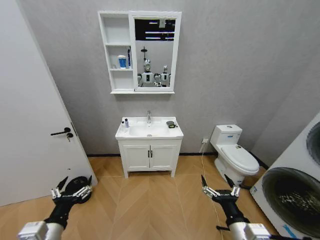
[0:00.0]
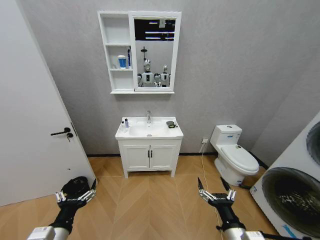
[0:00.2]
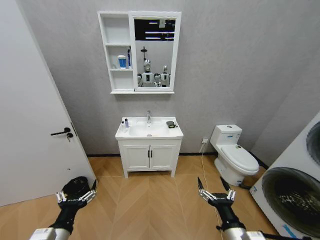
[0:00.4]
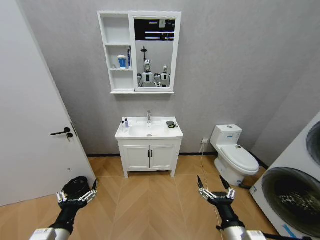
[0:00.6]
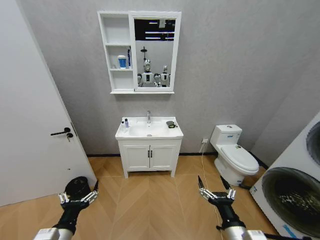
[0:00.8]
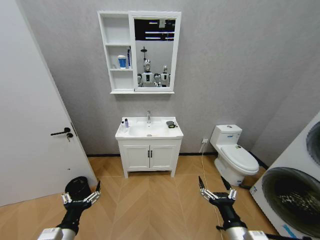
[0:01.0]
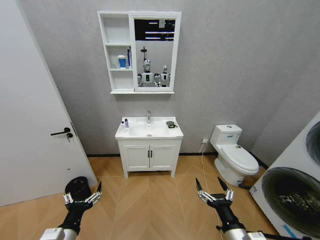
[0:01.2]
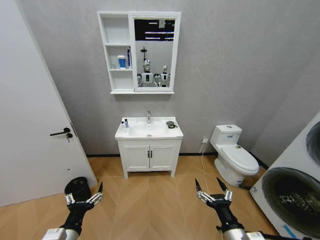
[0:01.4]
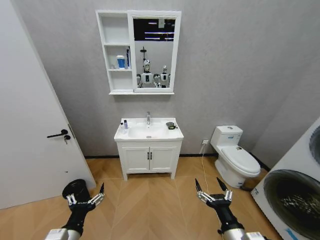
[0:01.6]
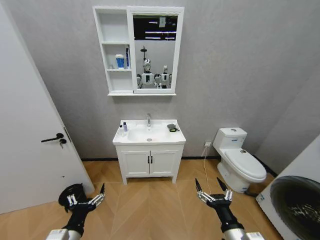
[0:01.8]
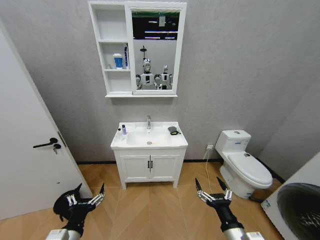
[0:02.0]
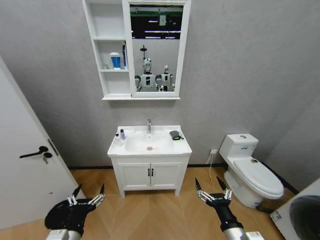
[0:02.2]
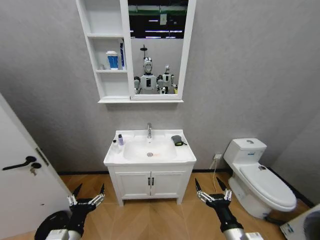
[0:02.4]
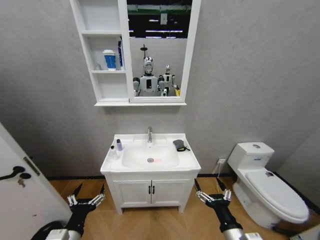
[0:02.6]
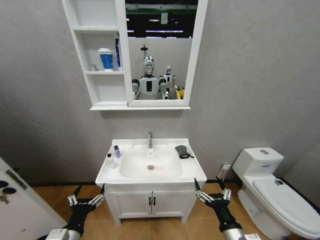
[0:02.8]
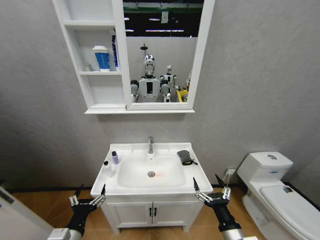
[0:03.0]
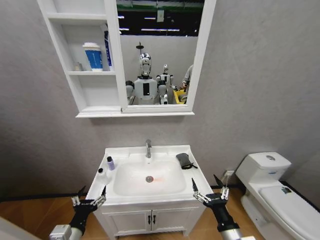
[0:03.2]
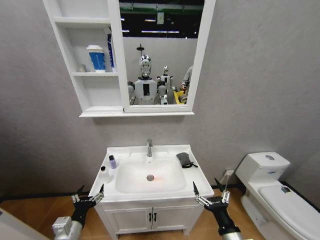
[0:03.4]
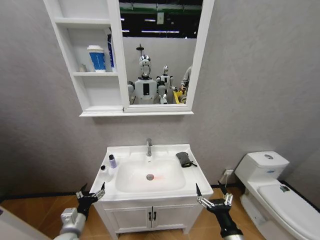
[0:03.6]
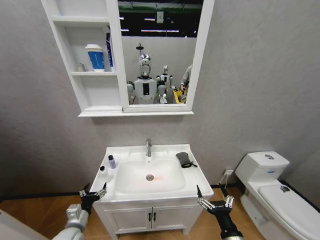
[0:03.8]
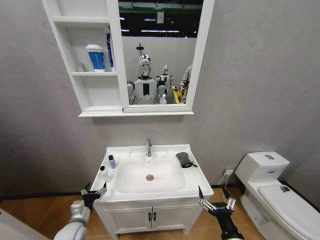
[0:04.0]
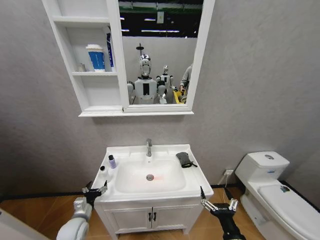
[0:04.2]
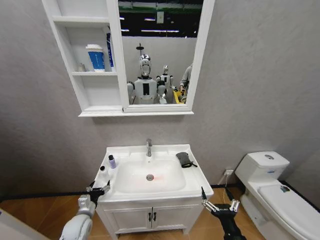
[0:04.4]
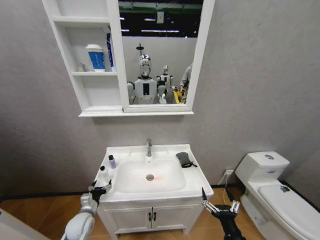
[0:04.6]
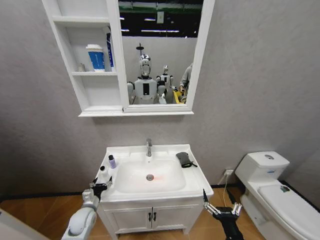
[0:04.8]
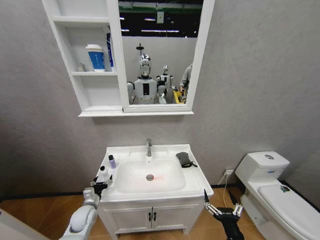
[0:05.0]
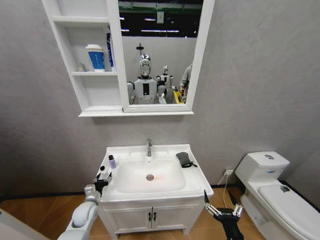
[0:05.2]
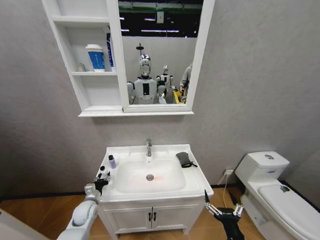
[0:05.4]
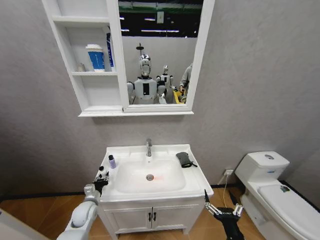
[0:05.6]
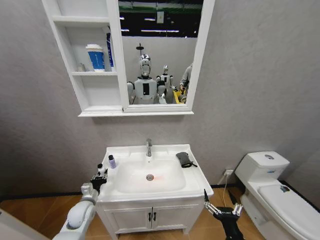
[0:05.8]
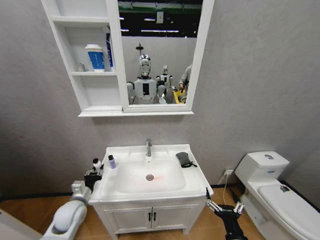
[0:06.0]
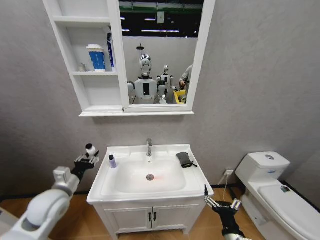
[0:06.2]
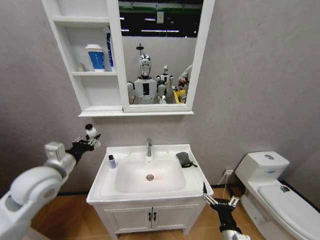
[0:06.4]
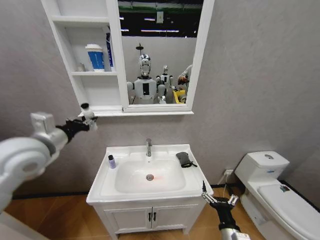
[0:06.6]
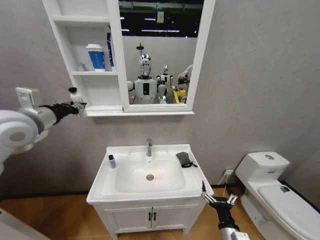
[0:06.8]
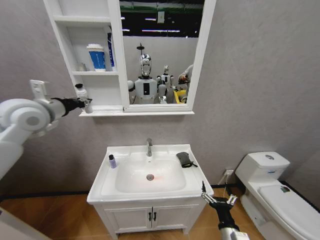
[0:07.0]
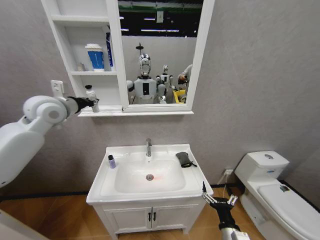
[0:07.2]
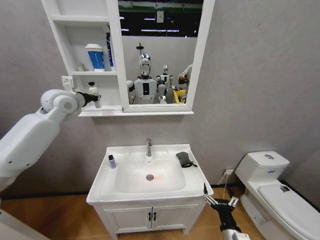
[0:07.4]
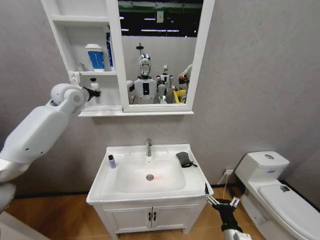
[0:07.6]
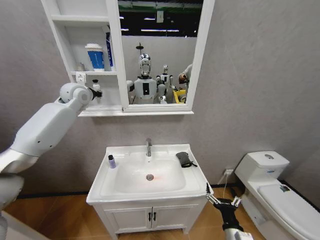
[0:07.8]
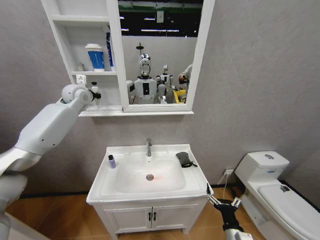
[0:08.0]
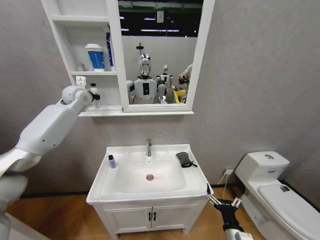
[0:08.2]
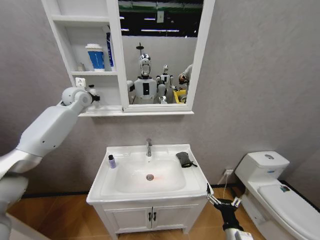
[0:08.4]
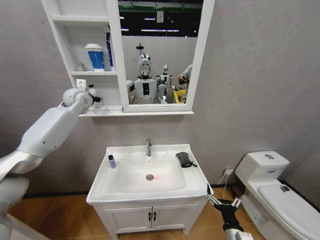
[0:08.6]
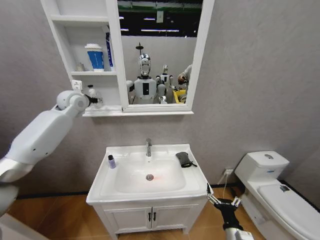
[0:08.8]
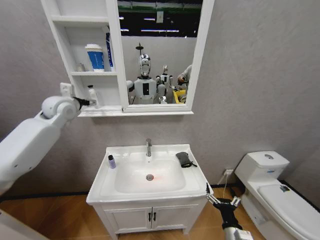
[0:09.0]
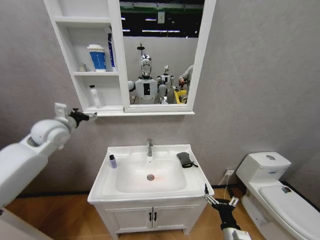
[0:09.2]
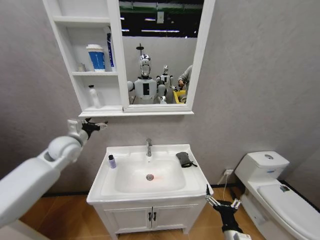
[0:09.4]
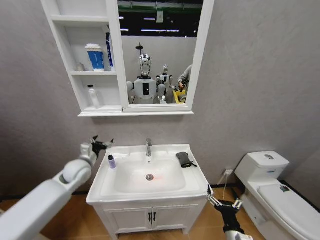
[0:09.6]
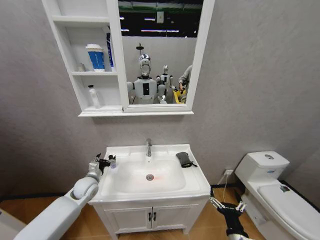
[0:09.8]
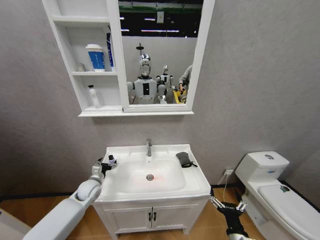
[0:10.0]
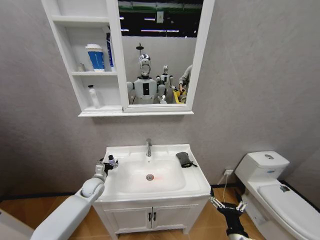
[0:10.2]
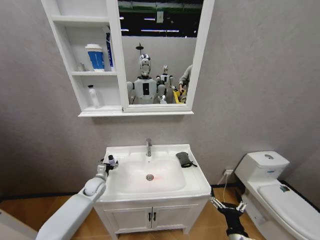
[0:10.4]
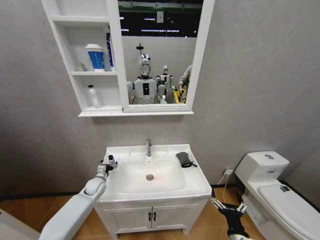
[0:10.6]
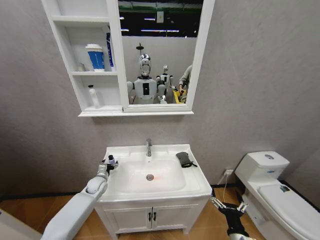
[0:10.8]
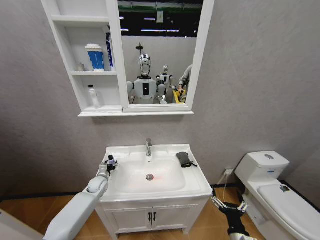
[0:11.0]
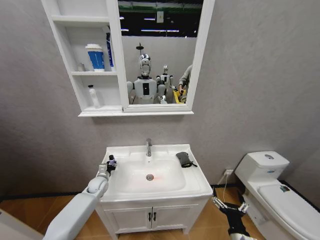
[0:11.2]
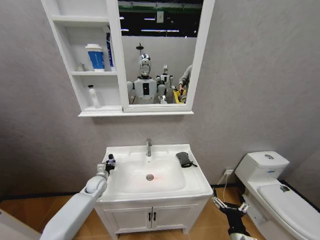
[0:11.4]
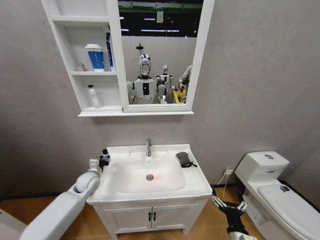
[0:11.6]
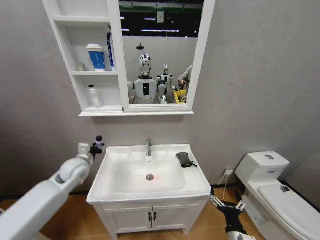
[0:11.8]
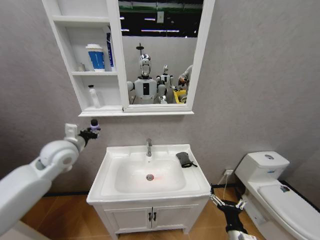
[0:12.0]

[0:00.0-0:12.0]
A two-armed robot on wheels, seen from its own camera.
Task of the whole recording: Move facial cleanser and shampoo from washbasin to cabinet, then wipe washbasin with towel.
0:03.0 to 0:04.4: The left gripper shifts about 20 cm forward and downward.
0:04.4 to 0:06.0: The left gripper goes approximately 10 cm upward, and closes up.
0:06.0 to 0:07.6: The left gripper shifts roughly 50 cm upward and forward.
0:07.6 to 0:09.0: The left gripper shifts by about 5 cm, and opens its fingers.
0:09.0 to 0:10.4: The left gripper shifts about 40 cm downward.
0:10.4 to 0:12.0: The left gripper goes about 30 cm upward, and closes up.

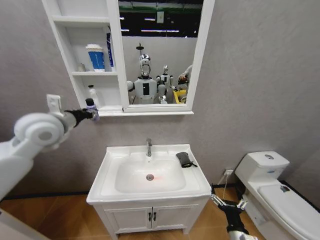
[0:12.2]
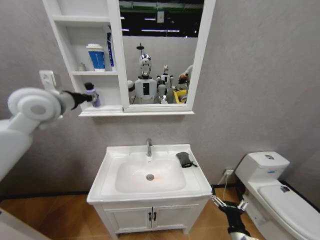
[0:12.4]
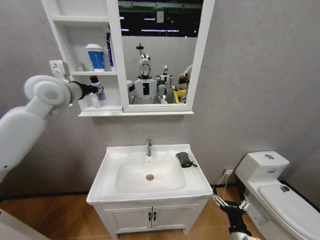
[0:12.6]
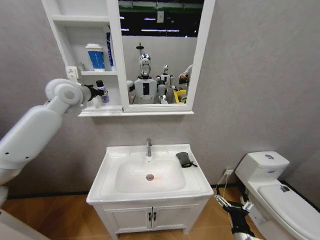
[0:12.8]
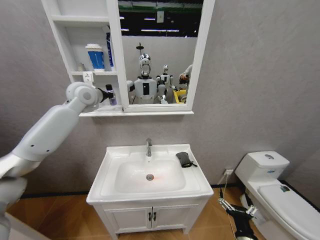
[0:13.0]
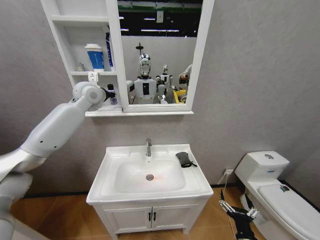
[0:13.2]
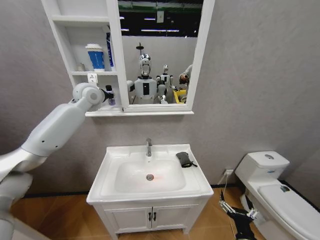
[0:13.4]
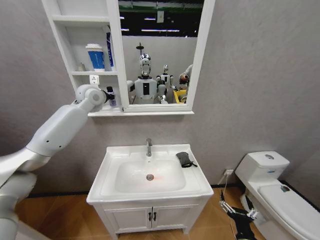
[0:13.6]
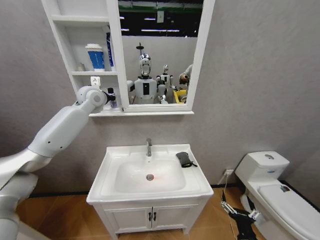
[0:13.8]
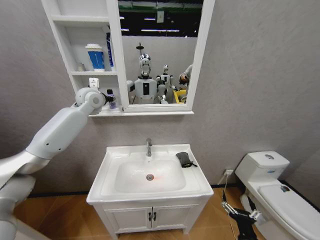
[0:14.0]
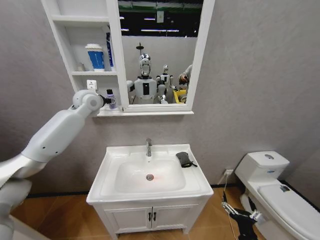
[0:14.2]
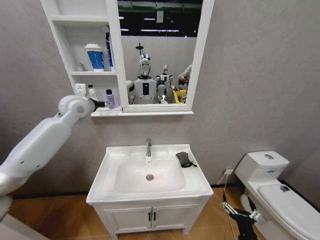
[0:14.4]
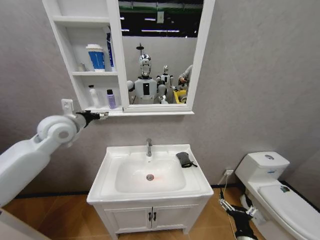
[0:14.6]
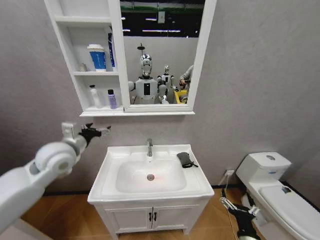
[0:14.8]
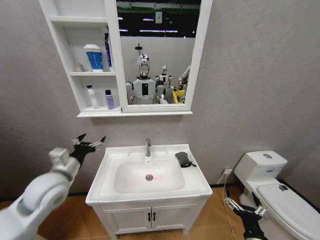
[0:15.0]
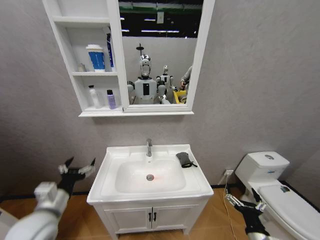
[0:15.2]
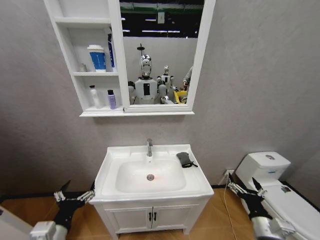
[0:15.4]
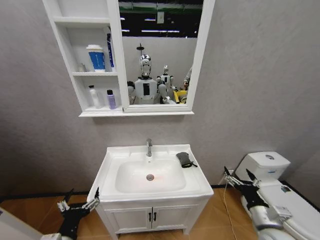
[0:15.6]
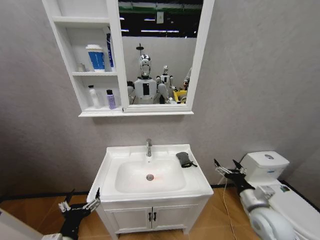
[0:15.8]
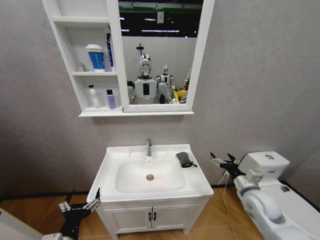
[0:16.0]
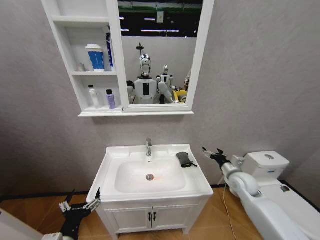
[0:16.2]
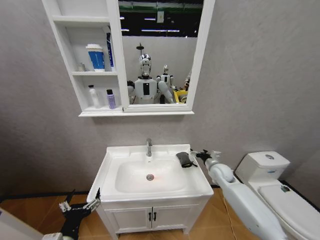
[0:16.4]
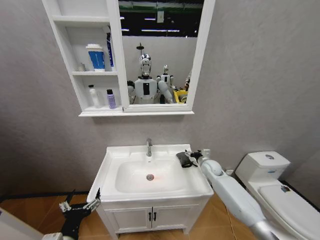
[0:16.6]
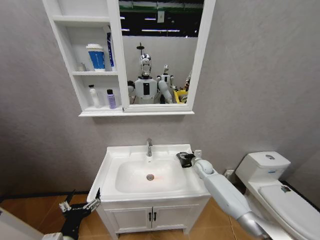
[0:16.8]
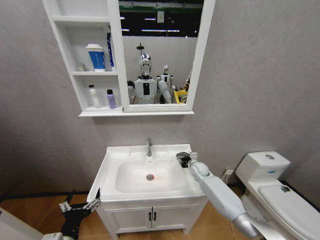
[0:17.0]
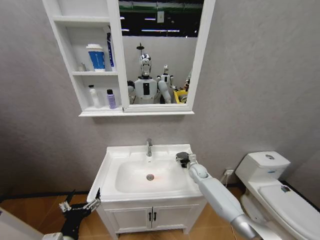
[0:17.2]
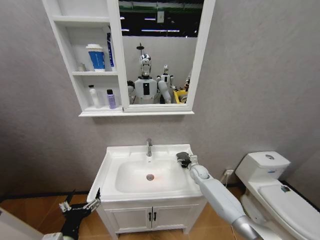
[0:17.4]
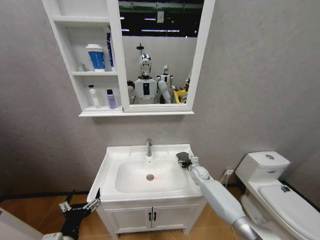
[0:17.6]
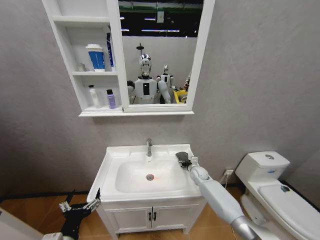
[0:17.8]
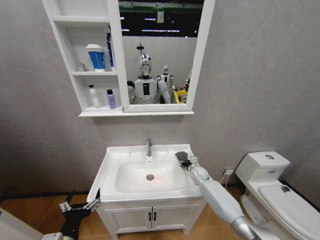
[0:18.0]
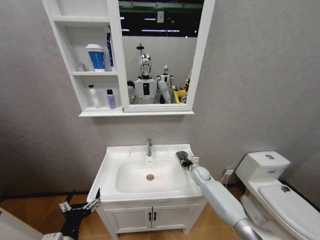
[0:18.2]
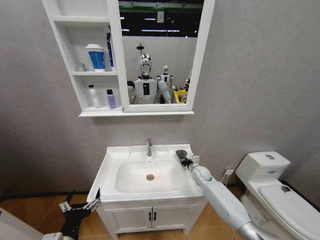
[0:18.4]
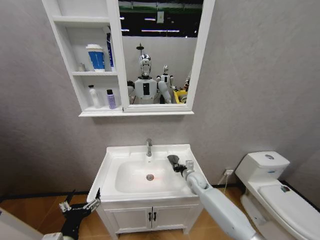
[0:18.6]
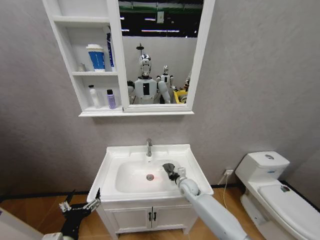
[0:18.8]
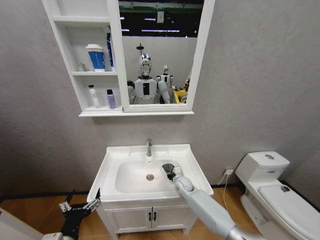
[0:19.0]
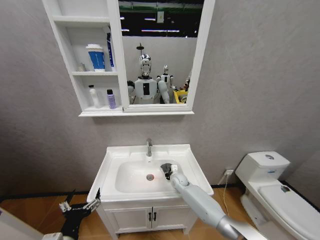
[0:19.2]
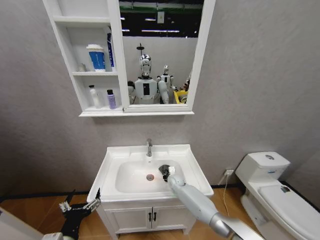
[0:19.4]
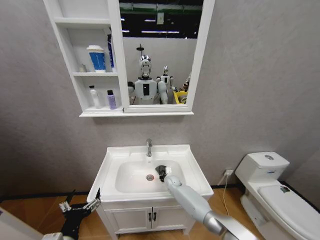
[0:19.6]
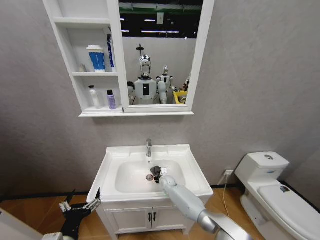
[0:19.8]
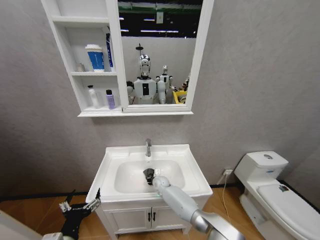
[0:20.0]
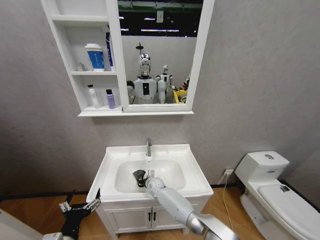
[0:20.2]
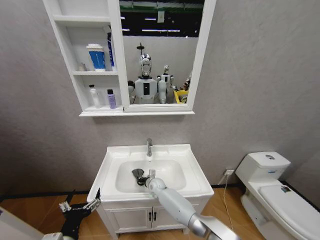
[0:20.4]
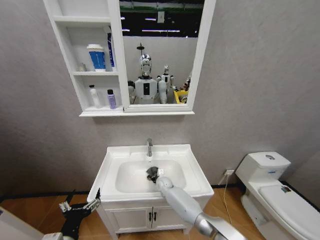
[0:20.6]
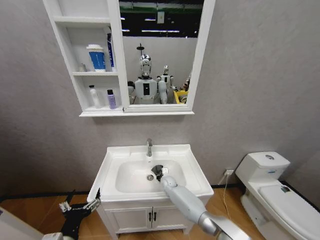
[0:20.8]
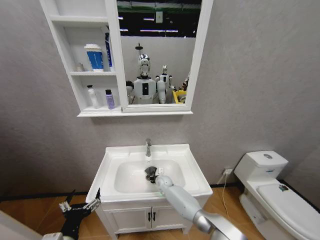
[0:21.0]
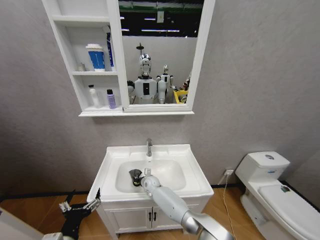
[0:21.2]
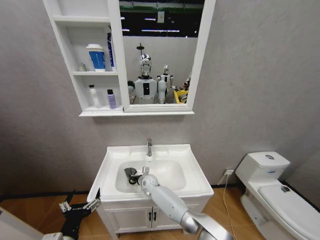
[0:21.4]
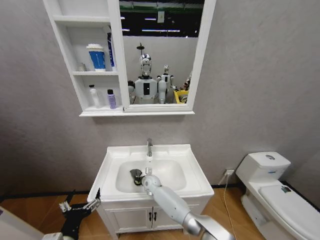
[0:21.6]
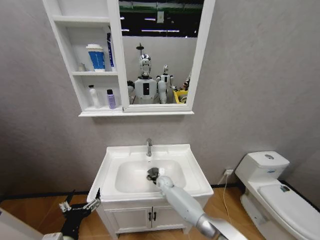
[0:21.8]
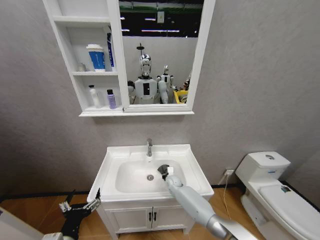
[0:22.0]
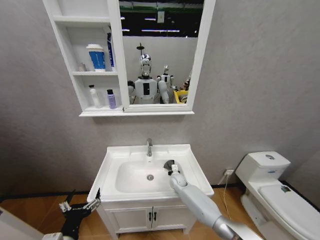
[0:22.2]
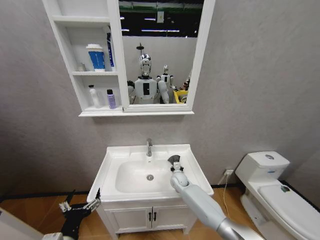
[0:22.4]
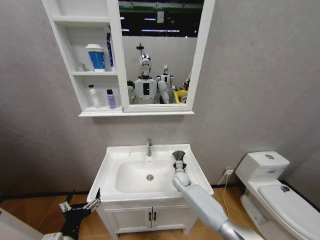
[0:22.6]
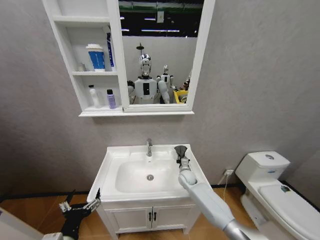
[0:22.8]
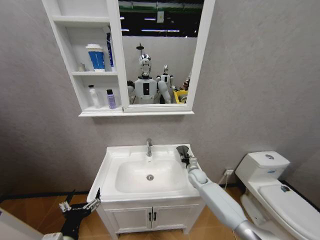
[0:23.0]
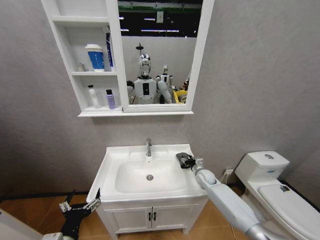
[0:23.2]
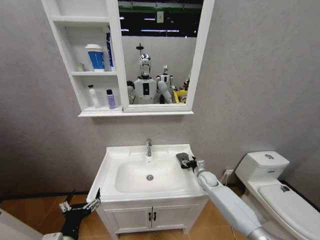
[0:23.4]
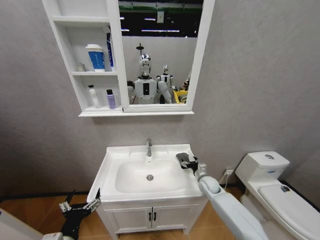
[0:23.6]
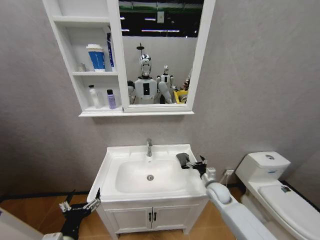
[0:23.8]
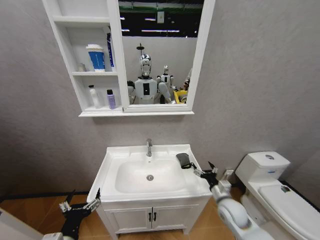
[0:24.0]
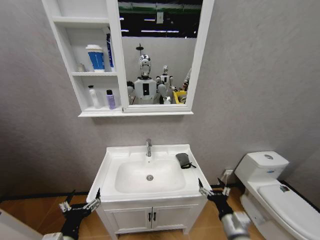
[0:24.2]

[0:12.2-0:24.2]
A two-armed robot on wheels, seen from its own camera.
Task of the whole recording: Move facial cleanser and shampoo from washbasin to cabinet, then wipe washbasin with towel.
0:12.2 to 0:13.8: The left gripper is displaced forward by roughly 20 cm.
0:13.8 to 0:15.2: The left gripper goes some 50 cm backward and downward, and opens. Meanwhile the right gripper shifts by roughly 5 cm.
0:15.2 to 0:16.6: The right gripper goes some 35 cm forward. Meanwhile the left gripper moves backward and to the right, approximately 10 cm.
0:16.6 to 0:18.2: The right gripper is displaced downward by about 5 cm, and closes up.
0:18.2 to 0:19.8: The right gripper travels to the left and downward by approximately 20 cm, and closes.
0:19.8 to 0:21.2: The right gripper goes left and right, some 10 cm each way, reversing 2 times.
0:21.2 to 0:22.6: The right gripper moves to the right, about 15 cm.
0:22.6 to 0:24.2: The right gripper shifts about 35 cm backward and to the right, and opens.
